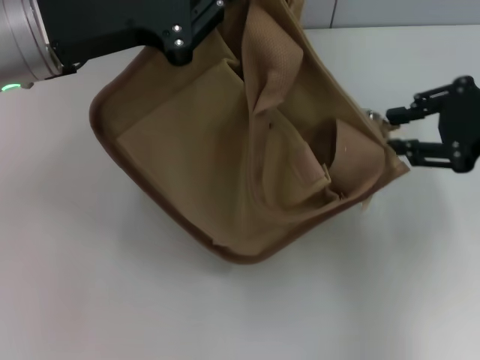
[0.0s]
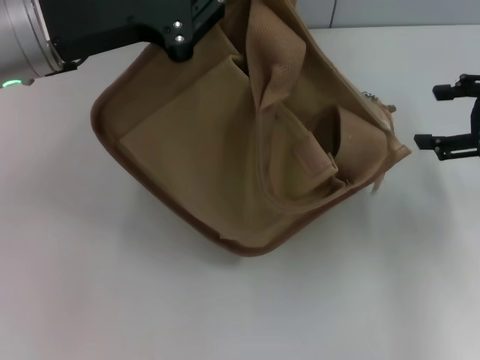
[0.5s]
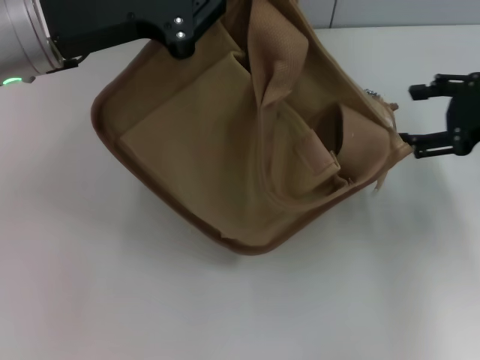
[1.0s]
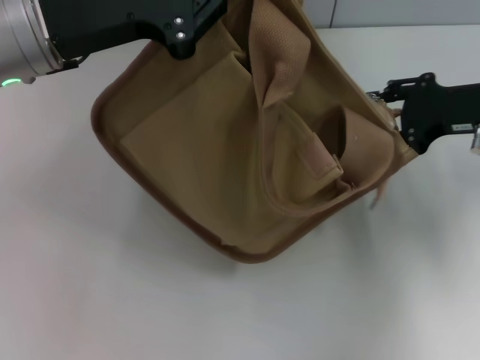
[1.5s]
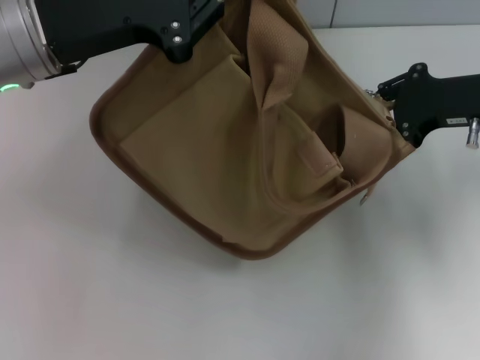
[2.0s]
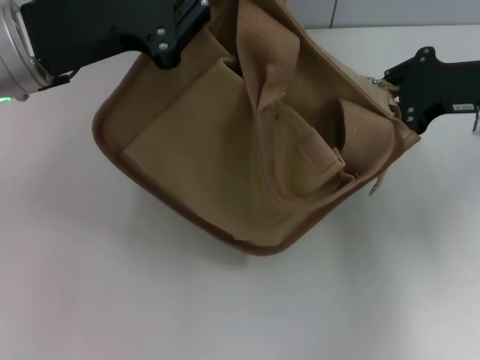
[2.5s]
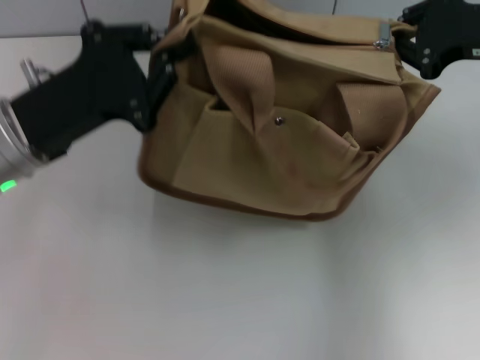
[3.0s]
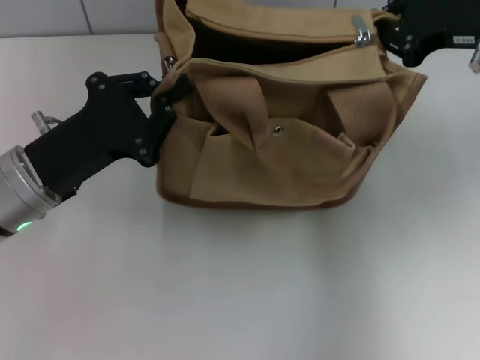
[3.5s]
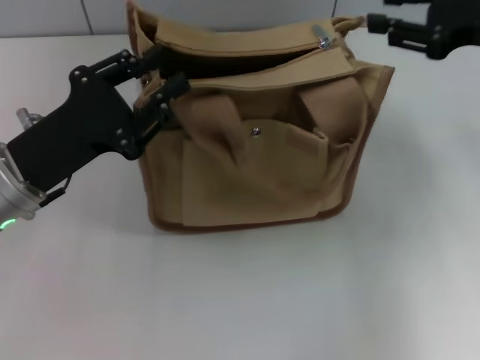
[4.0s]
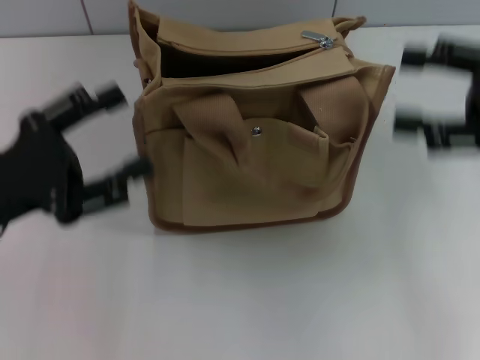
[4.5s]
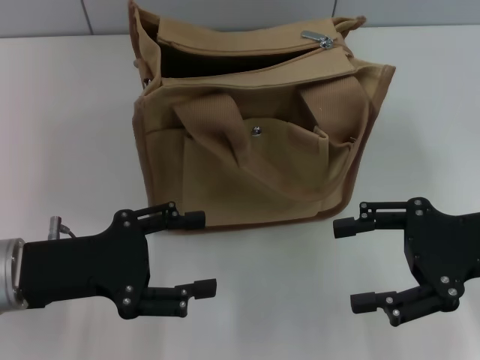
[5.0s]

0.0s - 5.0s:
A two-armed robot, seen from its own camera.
Step, 0.5s - 3.5s: Grab the bag with your left hand.
0.0s - 2.5s: The right gripper moves some 5 cm, and opens, then closes again.
2.5s - 5.0s: The left gripper goes about 15 cm downward and backward, and opens up, while the right gripper heads backward, covering some 10 cm, and opens up.

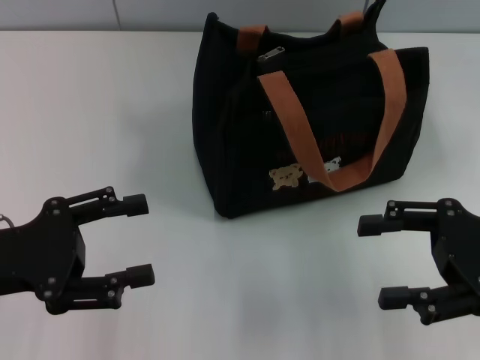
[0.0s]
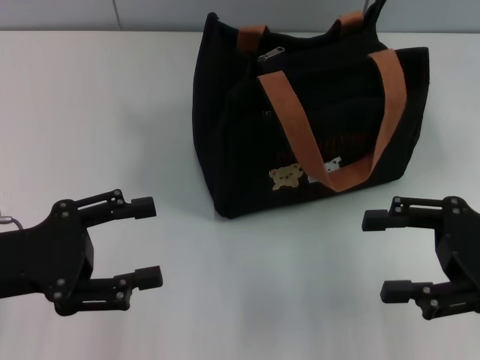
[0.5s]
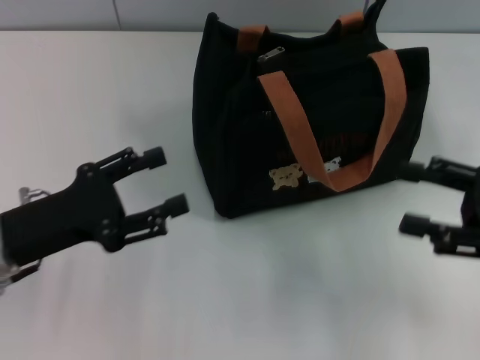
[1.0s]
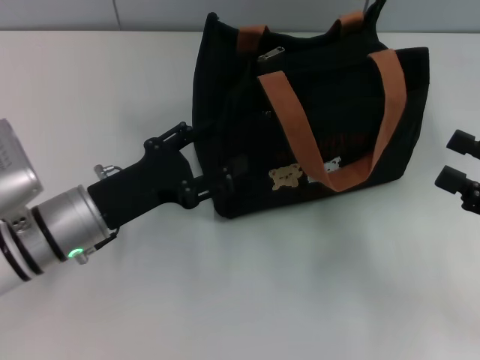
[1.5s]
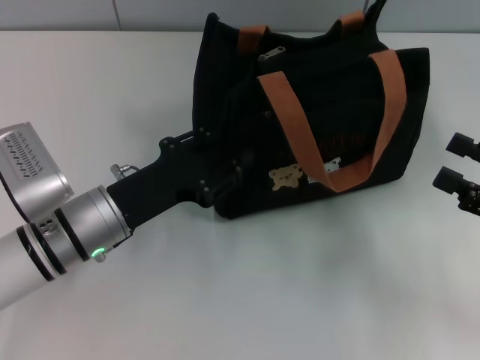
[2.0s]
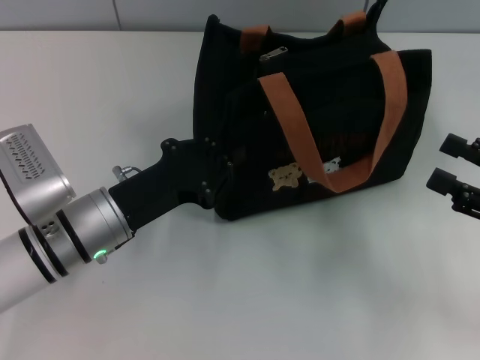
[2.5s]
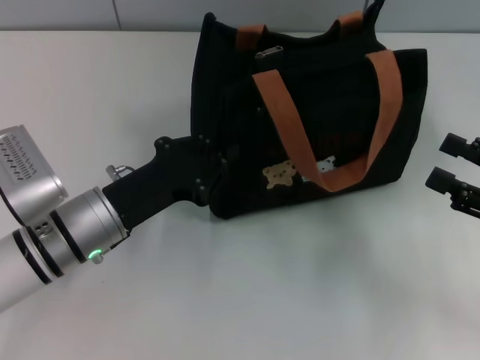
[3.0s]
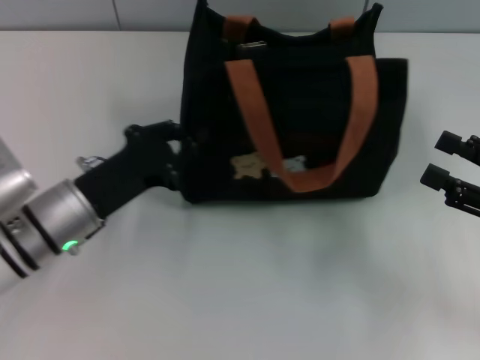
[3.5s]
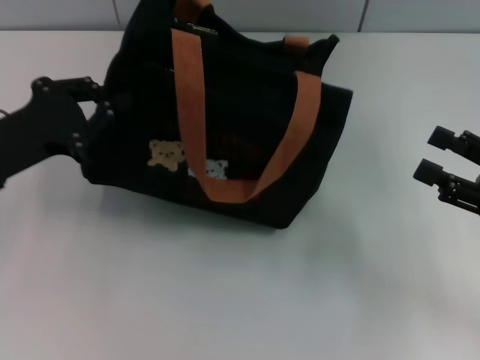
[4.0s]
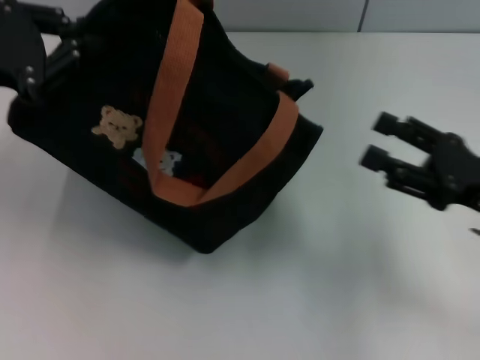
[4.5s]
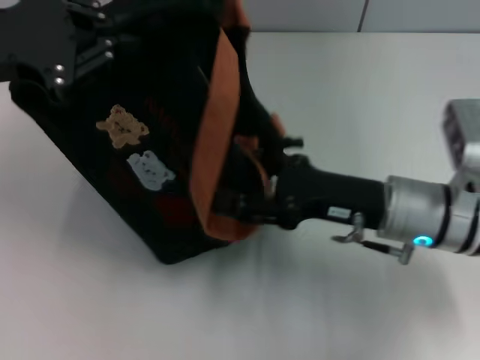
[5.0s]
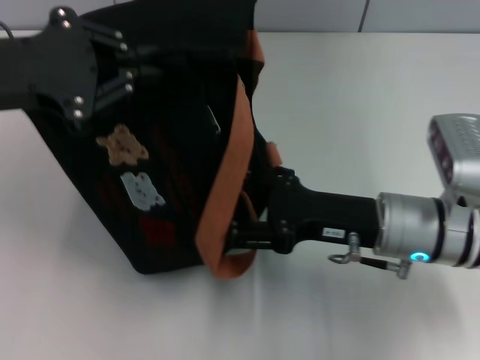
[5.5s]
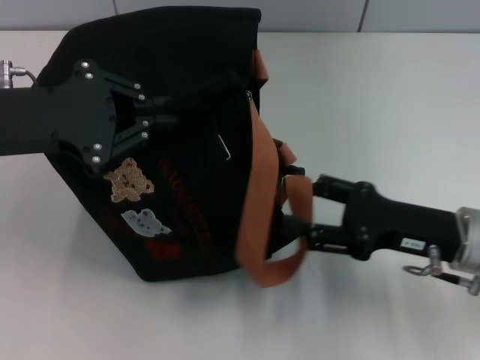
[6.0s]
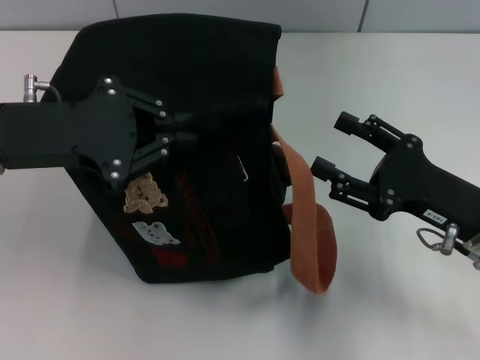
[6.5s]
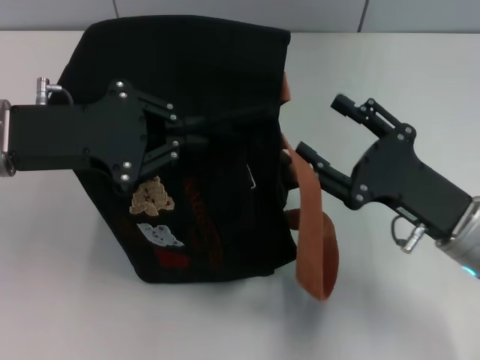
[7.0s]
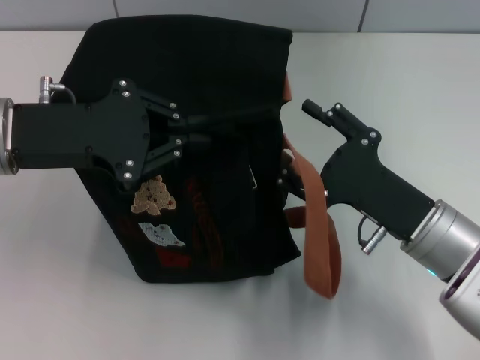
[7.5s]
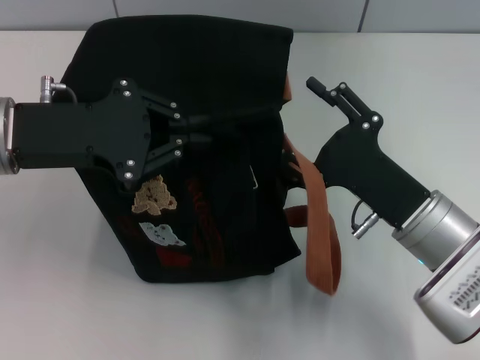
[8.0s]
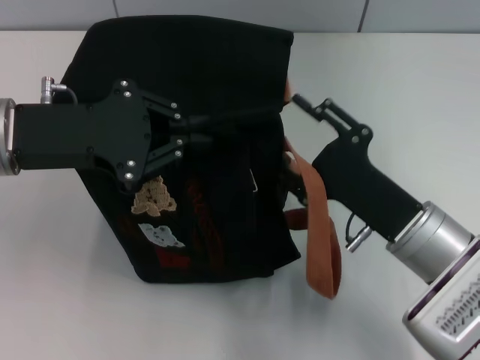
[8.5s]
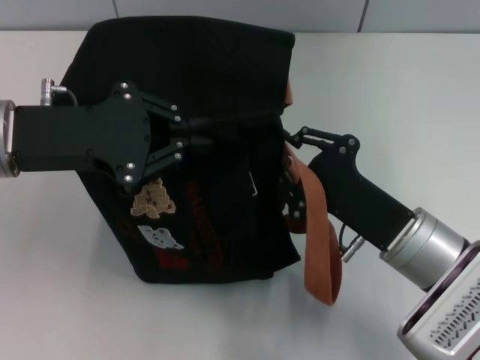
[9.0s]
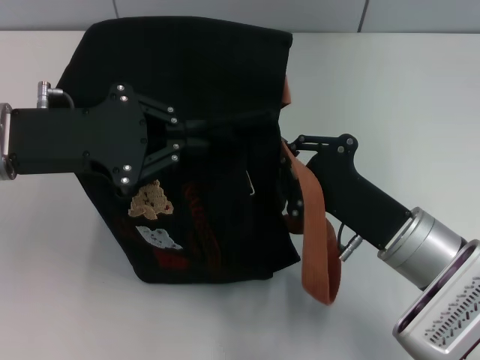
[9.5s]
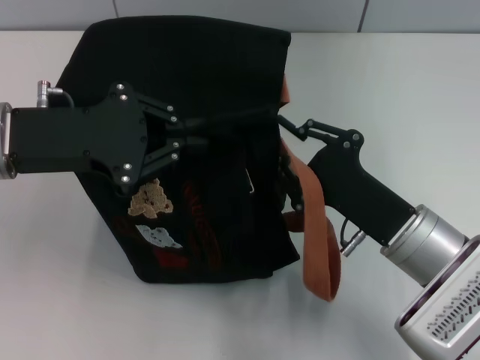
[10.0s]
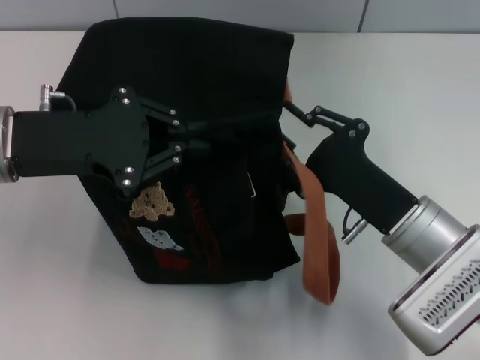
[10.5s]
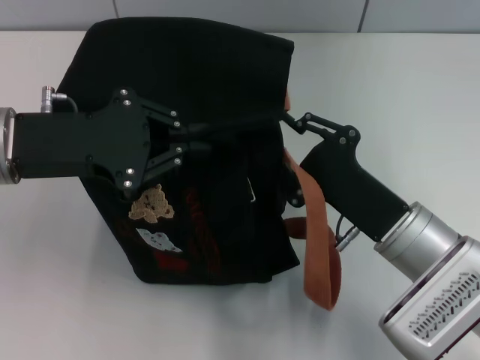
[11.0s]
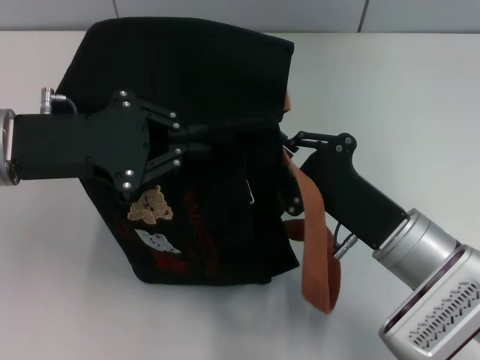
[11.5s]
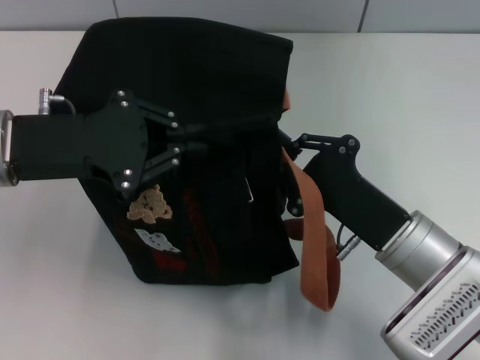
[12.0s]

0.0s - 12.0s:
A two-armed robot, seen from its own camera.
0.0s - 2.0s: The right gripper travels to the right by approximately 5 cm. The left gripper goes roughly 15 cm to the right, downward and forward.
2.0s - 4.0s: The left gripper is displaced to the left and upward by about 15 cm, and closes its fingers.
4.0s - 6.0s: The right gripper goes roughly 10 cm to the left, while the left gripper moves upward, approximately 5 cm.
6.0s - 8.0s: The right gripper travels to the left by some 5 cm.
8.0s - 10.0s: The right gripper closes up.
10.0s - 12.0s: Neither gripper changes place.

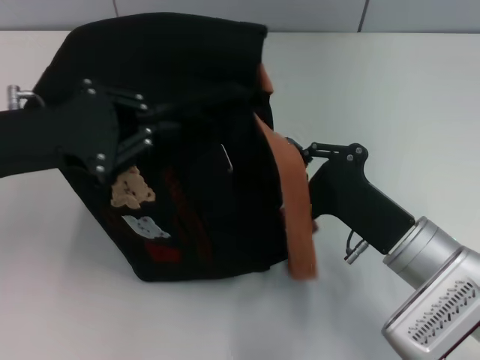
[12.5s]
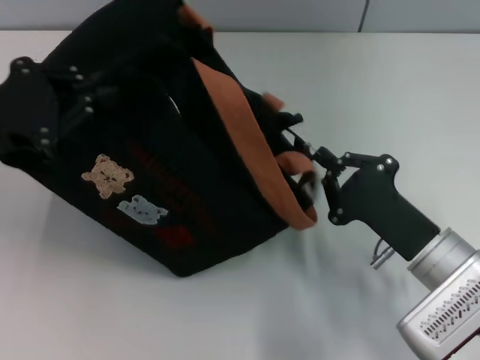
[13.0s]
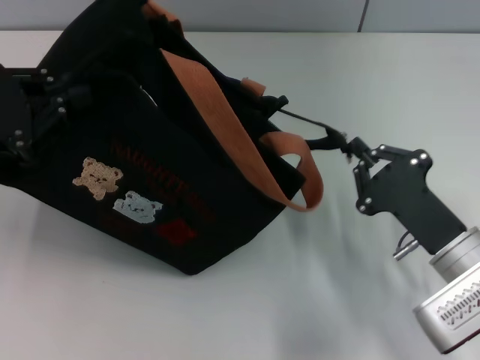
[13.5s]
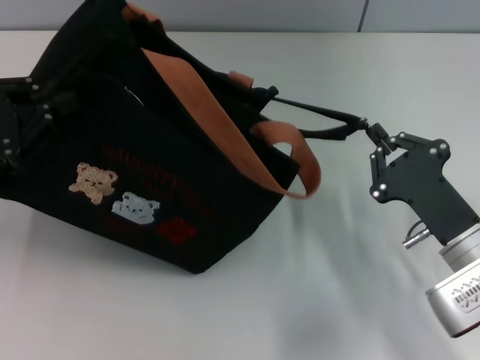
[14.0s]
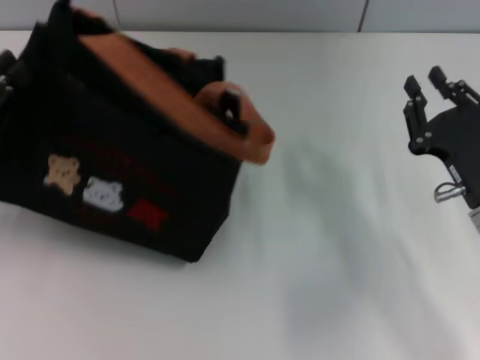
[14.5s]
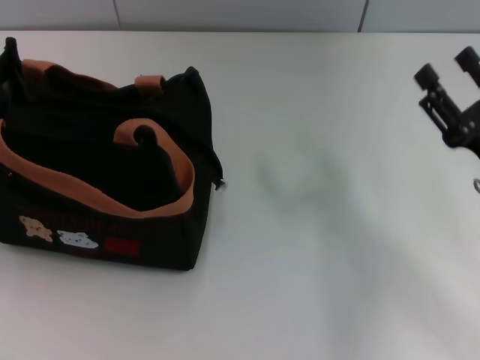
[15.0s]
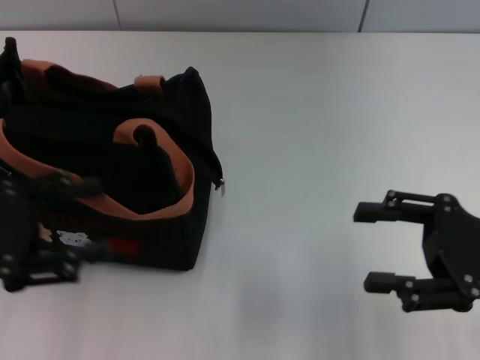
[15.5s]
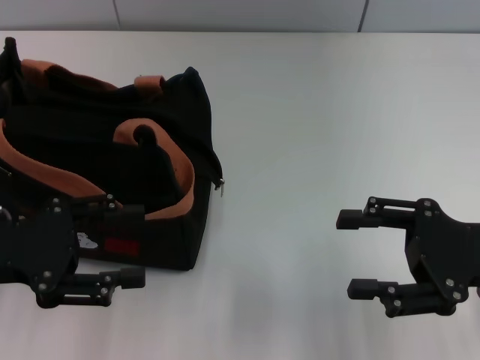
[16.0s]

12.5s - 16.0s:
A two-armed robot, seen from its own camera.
12.5s - 14.5s: The left gripper is displaced to the left and downward by some 10 cm, while the right gripper travels to the right by about 5 cm.
14.5s - 16.0s: The left gripper opens. The right gripper travels upward by approximately 5 cm, and opens up.
